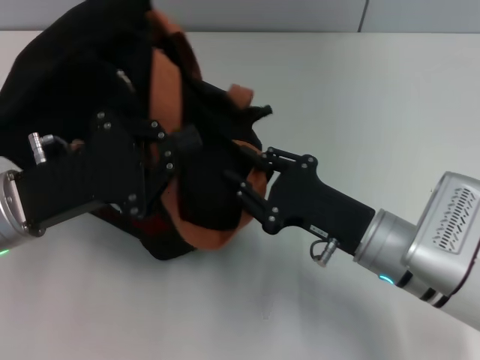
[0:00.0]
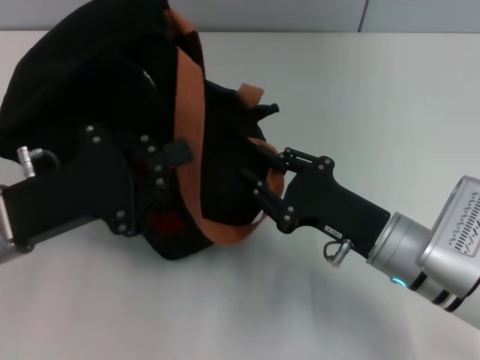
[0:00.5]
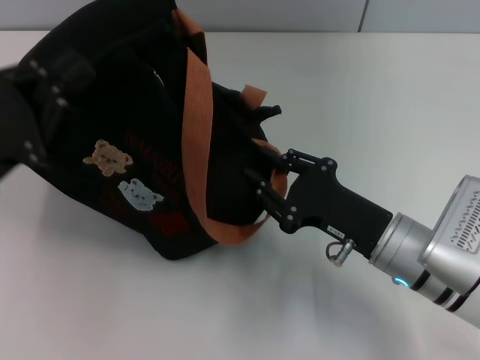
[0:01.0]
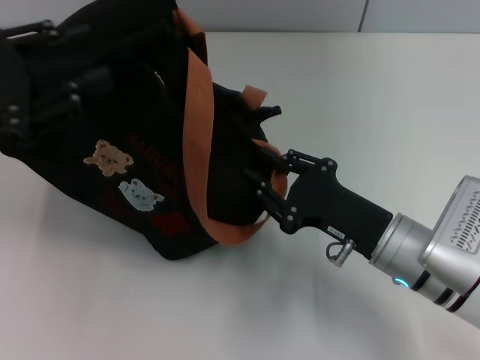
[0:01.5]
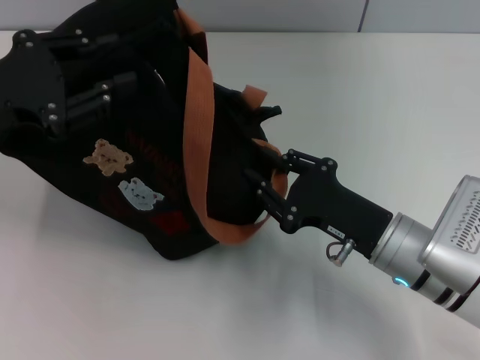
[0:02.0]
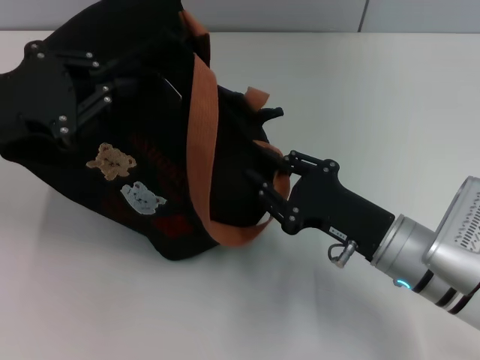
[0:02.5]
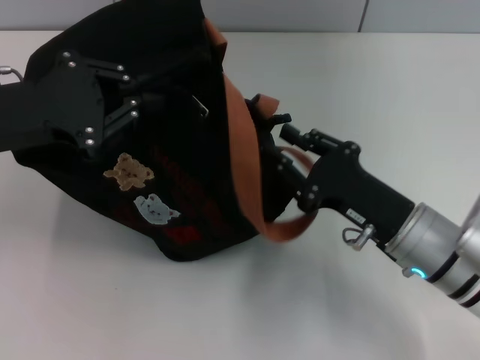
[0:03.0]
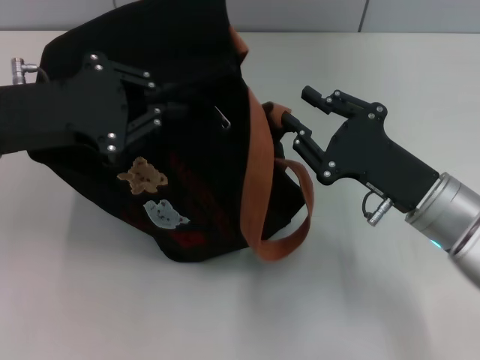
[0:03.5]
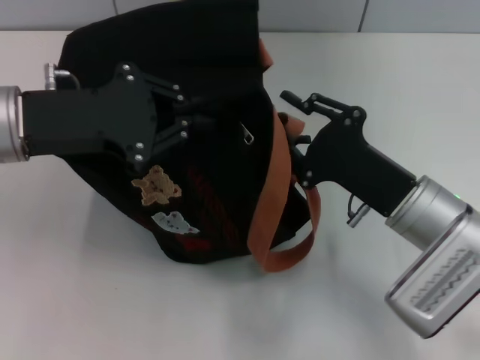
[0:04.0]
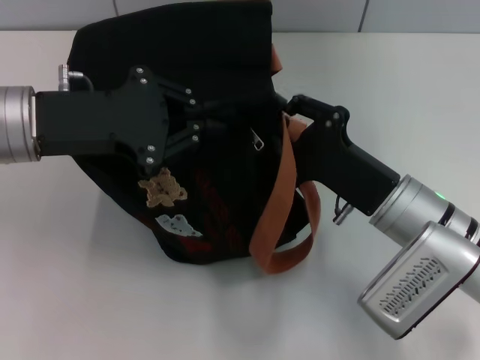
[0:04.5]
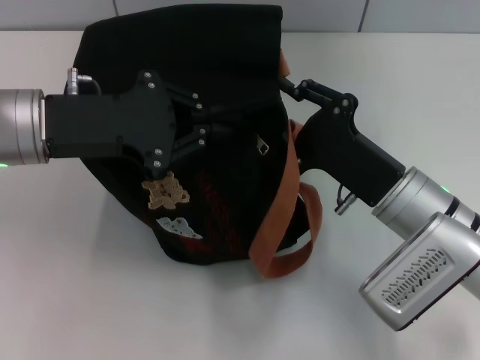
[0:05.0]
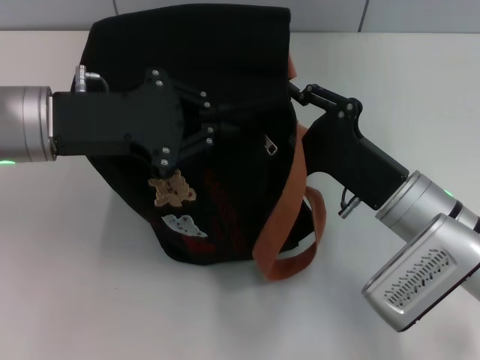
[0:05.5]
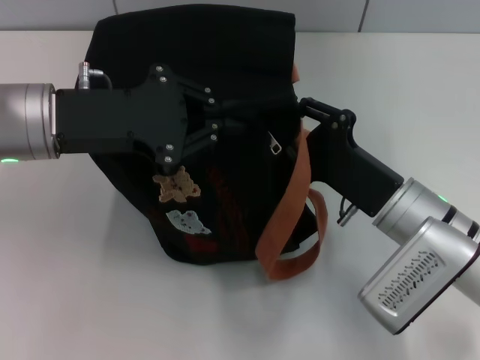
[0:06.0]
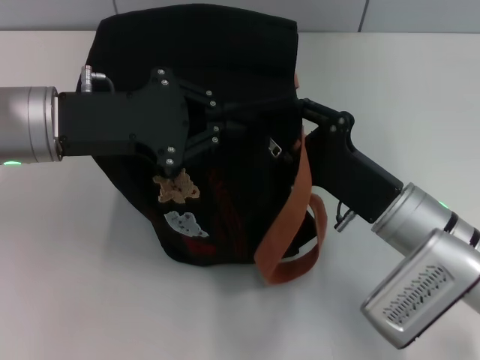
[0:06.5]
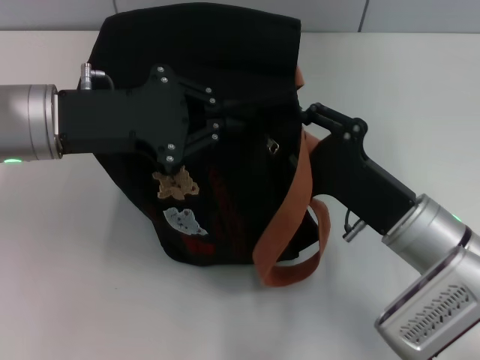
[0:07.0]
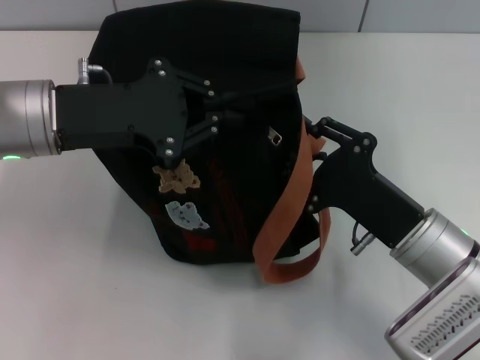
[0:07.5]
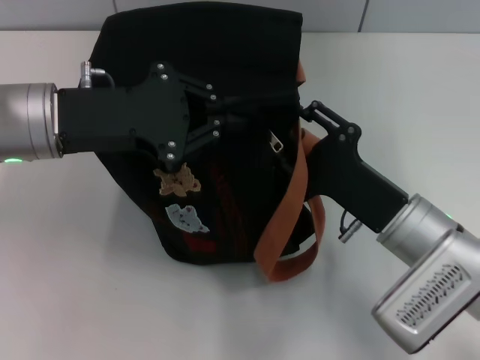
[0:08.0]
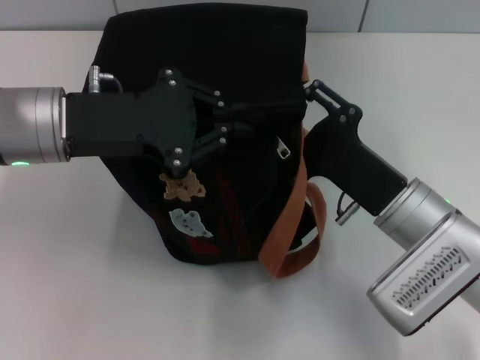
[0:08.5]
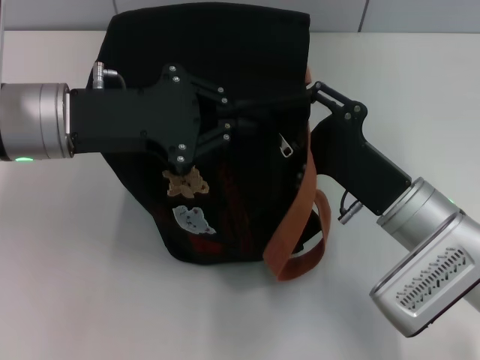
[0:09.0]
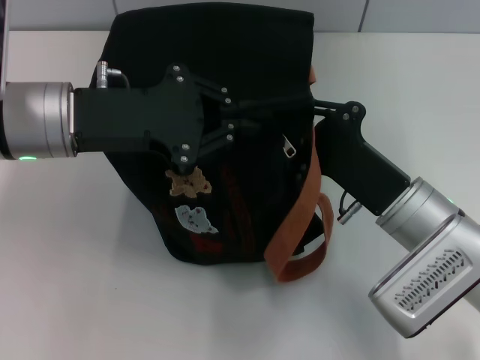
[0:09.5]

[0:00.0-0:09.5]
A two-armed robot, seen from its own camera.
0:00.0 to 0:02.0: The left gripper is displaced upward and to the left by about 10 cm, and opens up.
0:02.0 to 0:04.0: The left gripper goes approximately 5 cm to the right, and closes.
0:04.0 to 0:09.5: The grippers stay close to where they were, moving slightly.

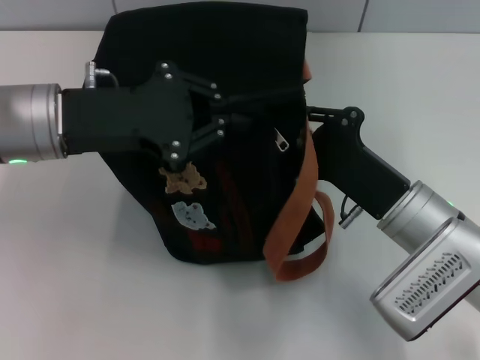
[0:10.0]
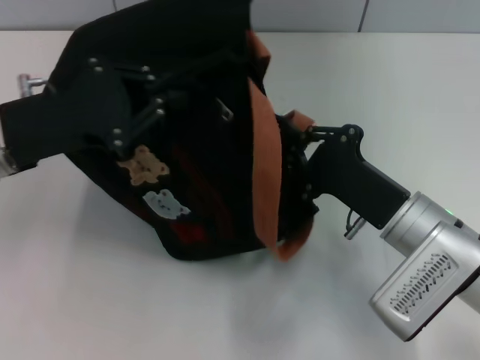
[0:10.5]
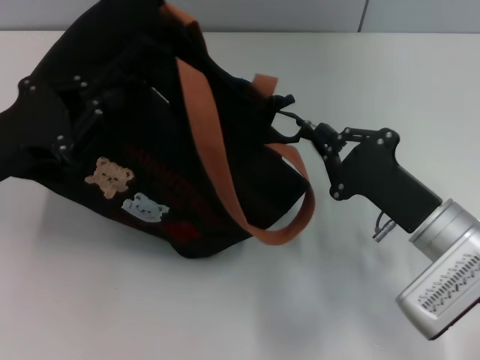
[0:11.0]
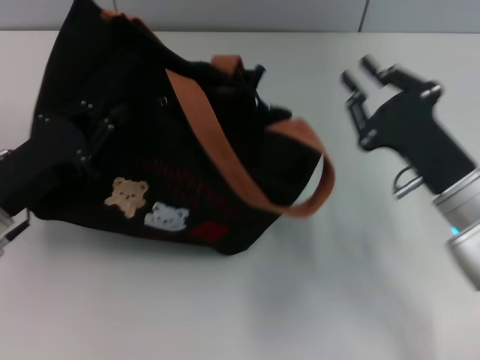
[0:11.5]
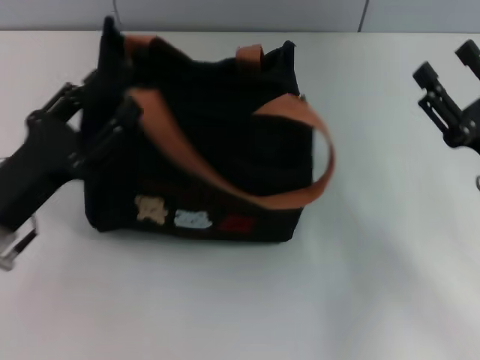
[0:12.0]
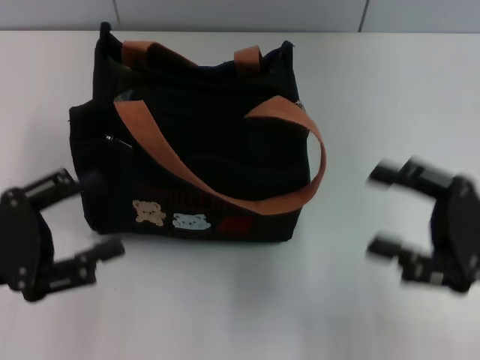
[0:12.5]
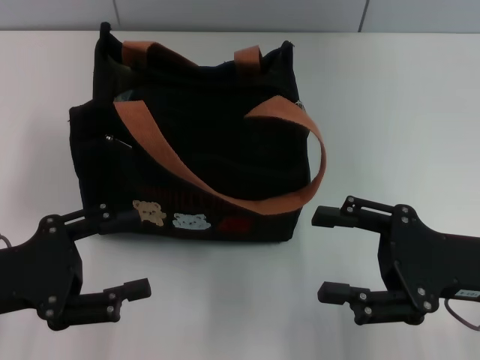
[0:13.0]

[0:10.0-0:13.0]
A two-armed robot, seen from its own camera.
Step, 0:11.5 to 0:12.0: Grab the bag with your left hand.
0:10.0 to 0:11.5: The left gripper is displaced downward, to the left and backward by about 15 cm.
0:11.5 to 0:13.0: The right gripper changes place by approximately 5 cm, and opens up. Meanwhile the left gripper heads backward, covering about 5 cm, and opens.

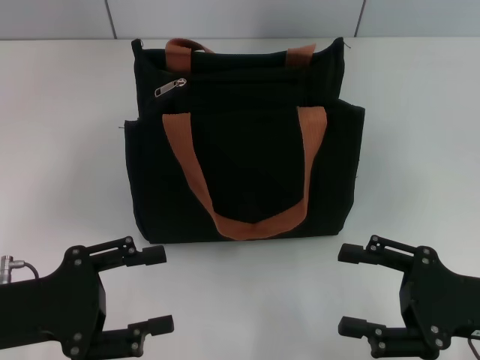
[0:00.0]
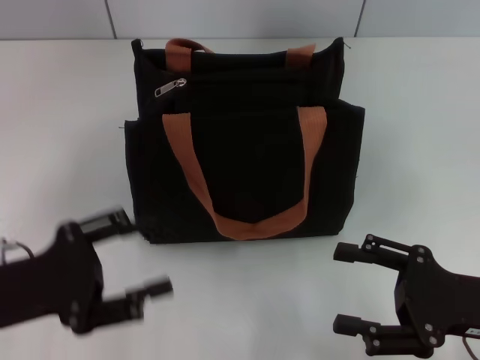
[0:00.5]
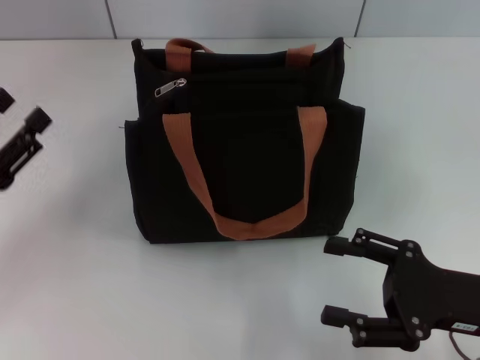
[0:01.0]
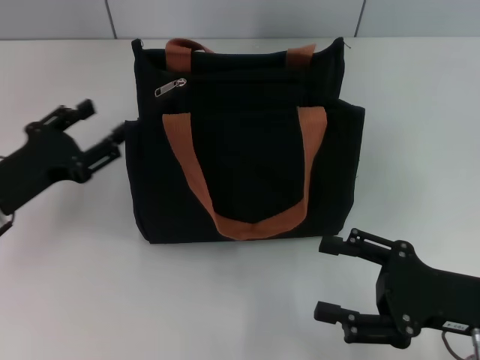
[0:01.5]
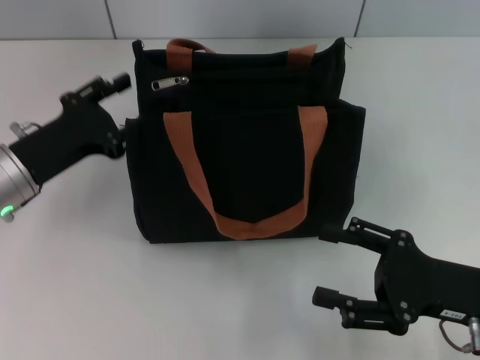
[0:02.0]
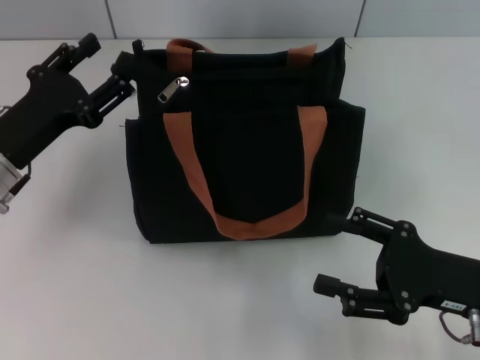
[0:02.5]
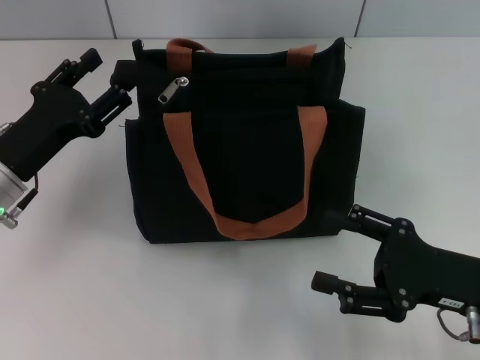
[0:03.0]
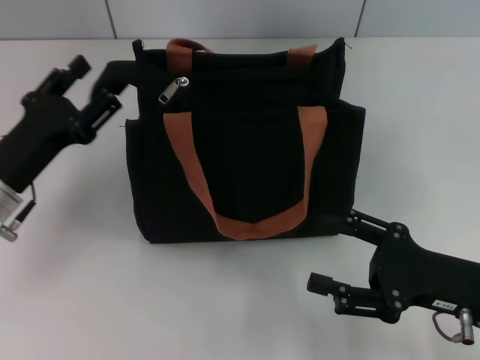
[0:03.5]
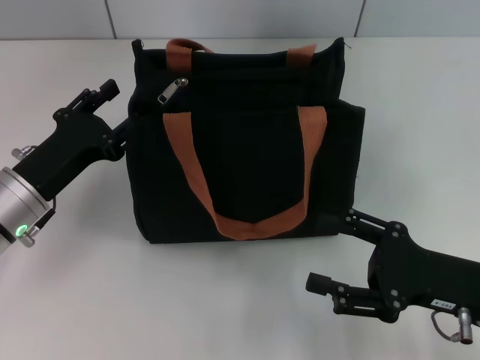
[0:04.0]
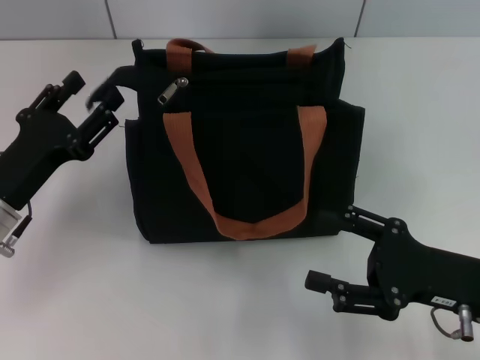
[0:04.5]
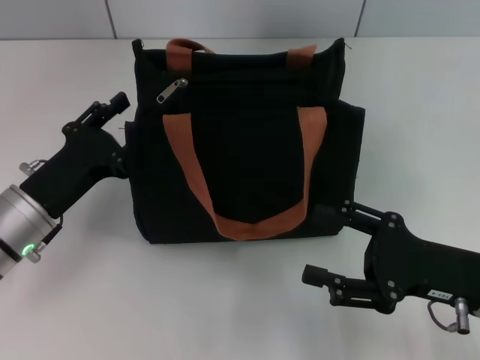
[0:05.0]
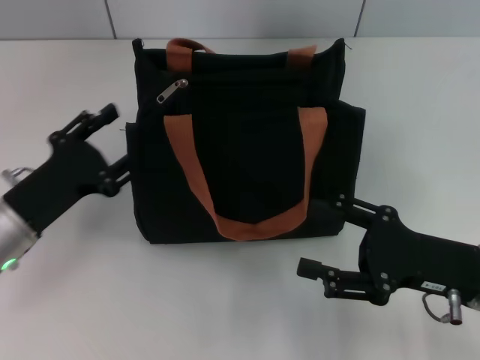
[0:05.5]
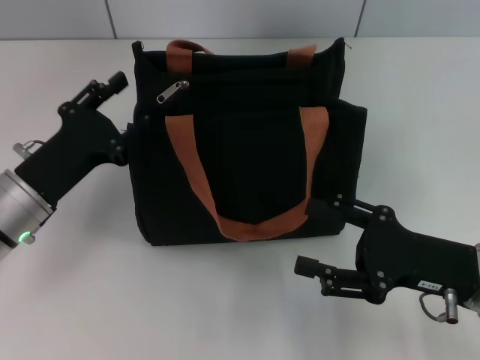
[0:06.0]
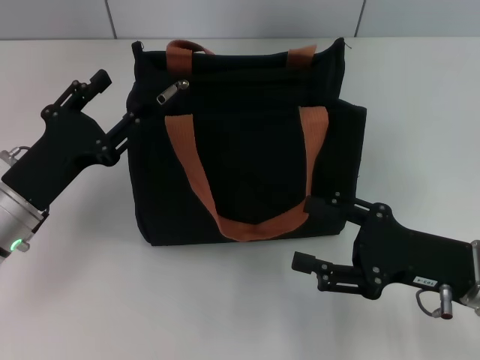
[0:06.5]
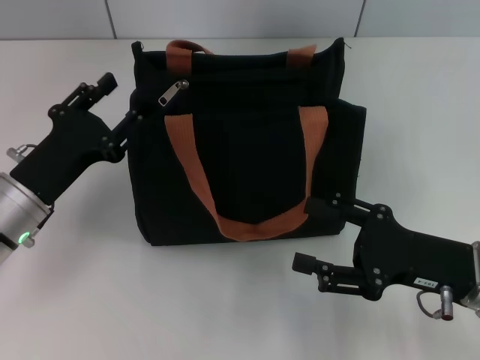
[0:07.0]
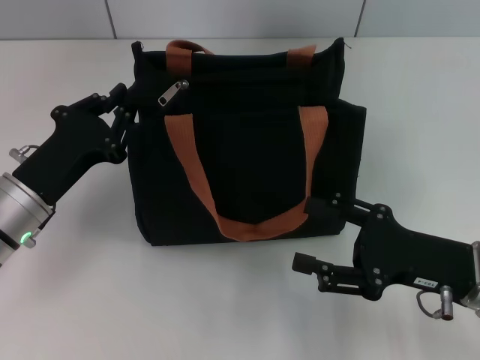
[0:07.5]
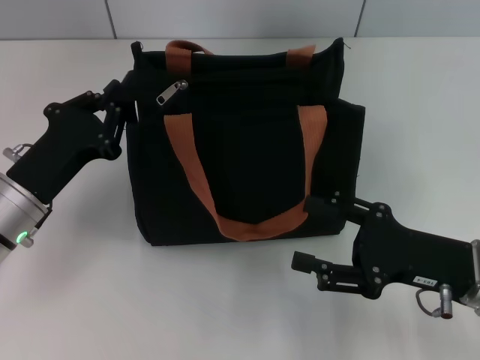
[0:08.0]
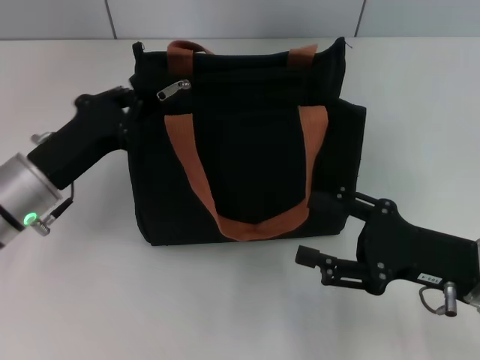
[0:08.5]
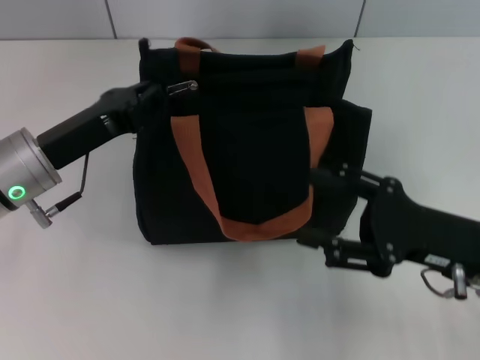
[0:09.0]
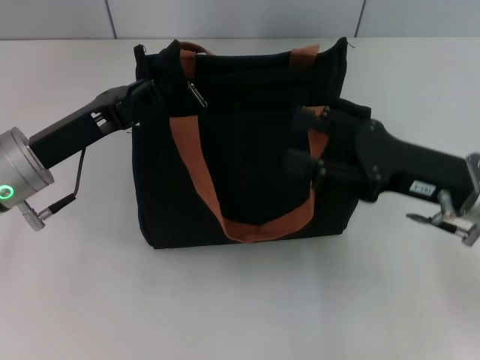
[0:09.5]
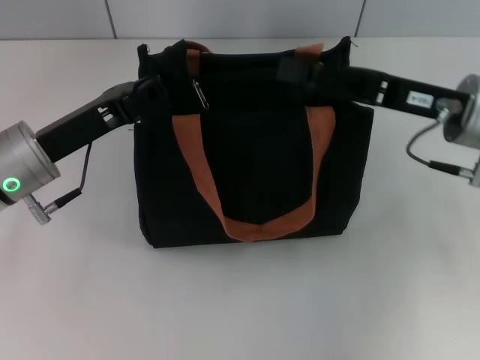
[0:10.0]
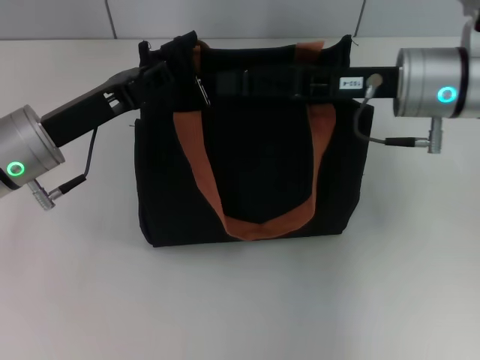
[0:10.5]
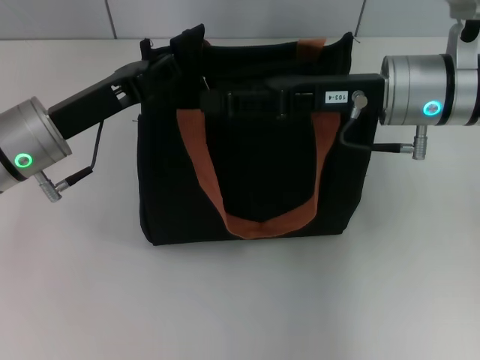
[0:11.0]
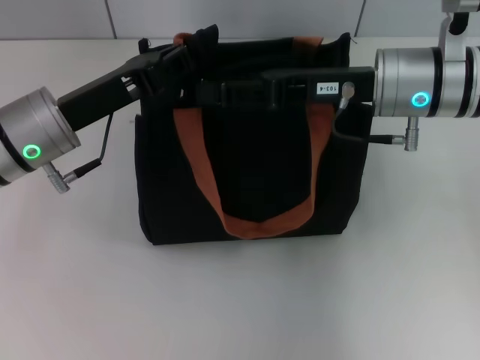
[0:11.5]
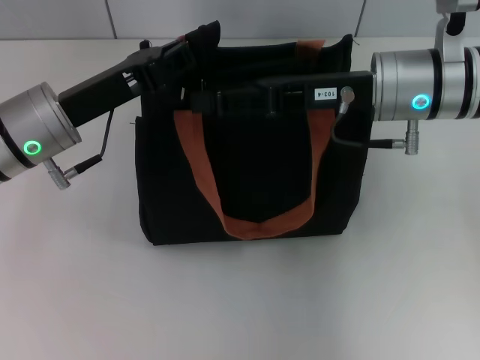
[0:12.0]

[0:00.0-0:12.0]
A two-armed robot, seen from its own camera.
0:00.0 to 0:02.0: The left gripper is displaced forward by about 10 cm.
0:04.0 to 0:06.0: There are only small adjustments of the grippers.
0:06.0 to 0:08.0: The left gripper closes up.
0:08.0 to 0:10.0: The right gripper heads forward and upward, covering some 15 cm. The left gripper moves some 5 cm.
0:10.0 to 0:12.0: The right gripper shifts approximately 5 cm to the left.

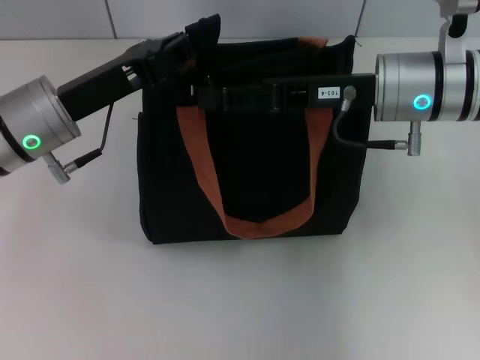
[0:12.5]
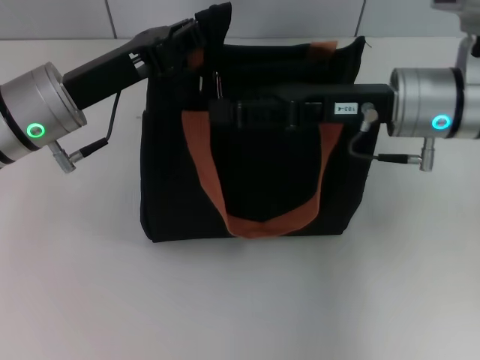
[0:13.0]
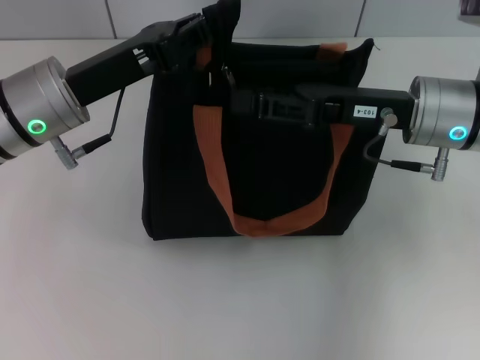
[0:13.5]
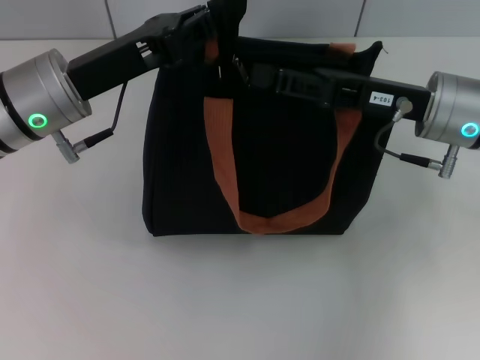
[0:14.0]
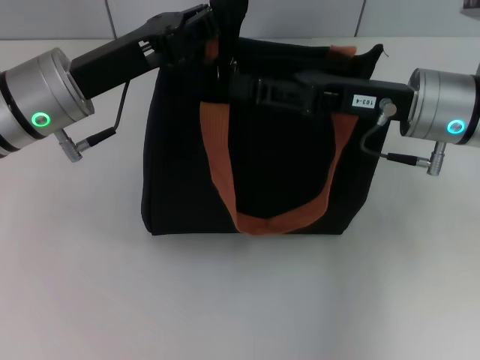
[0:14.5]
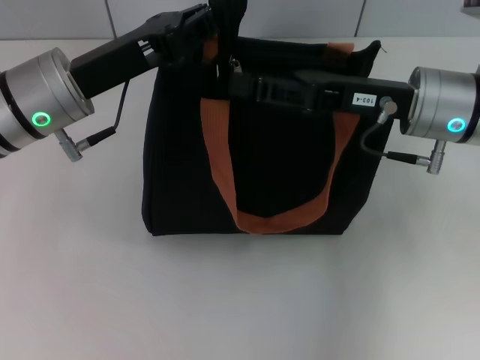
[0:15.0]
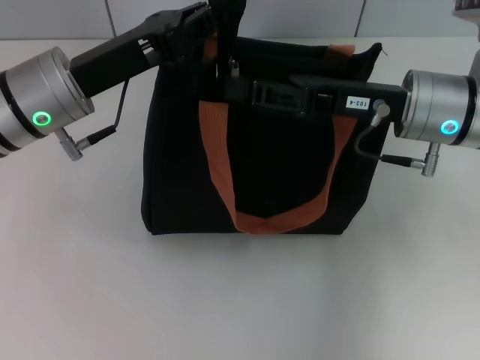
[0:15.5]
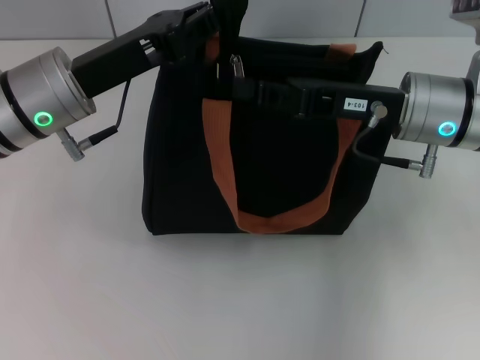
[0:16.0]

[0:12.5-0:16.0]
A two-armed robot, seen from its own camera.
0:14.5 to 0:16.0: The right gripper closes.
